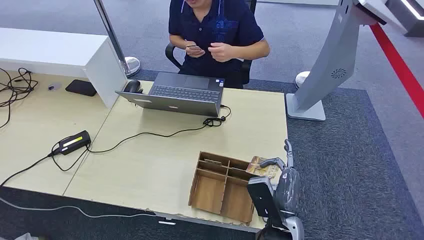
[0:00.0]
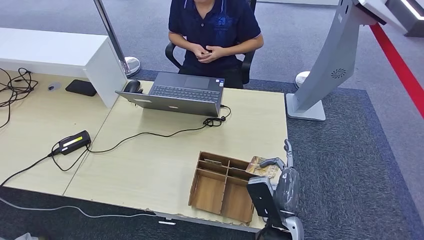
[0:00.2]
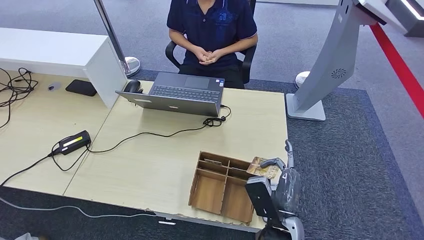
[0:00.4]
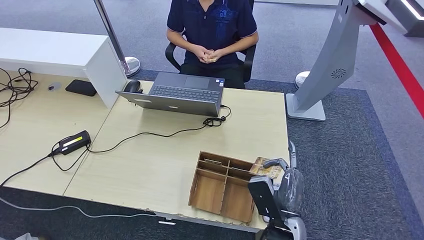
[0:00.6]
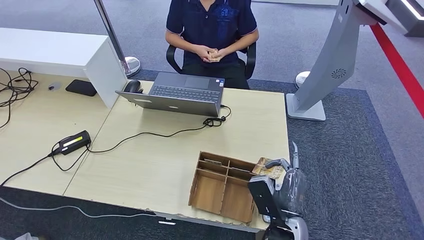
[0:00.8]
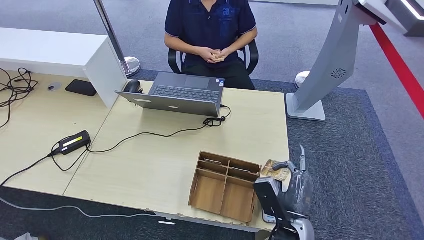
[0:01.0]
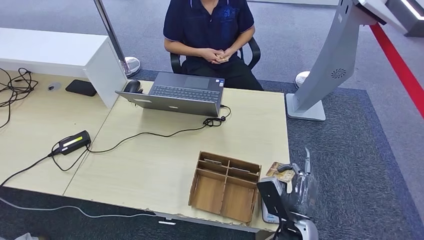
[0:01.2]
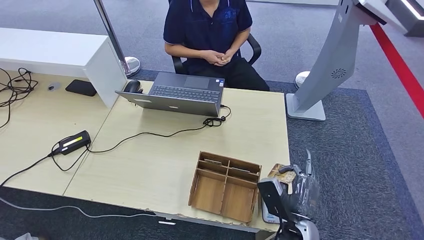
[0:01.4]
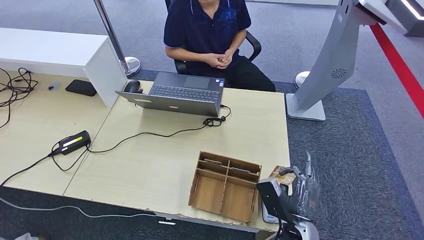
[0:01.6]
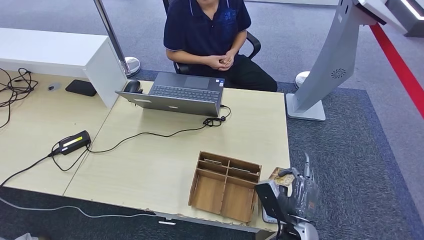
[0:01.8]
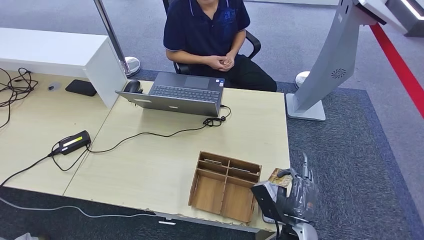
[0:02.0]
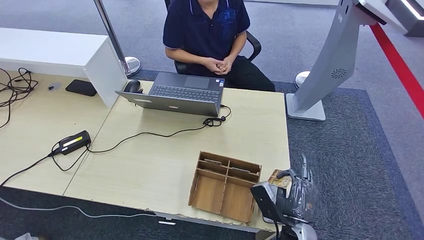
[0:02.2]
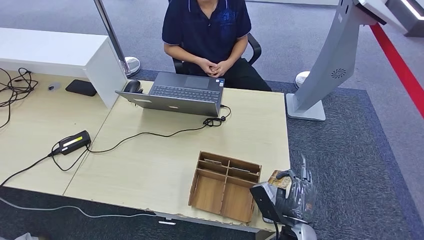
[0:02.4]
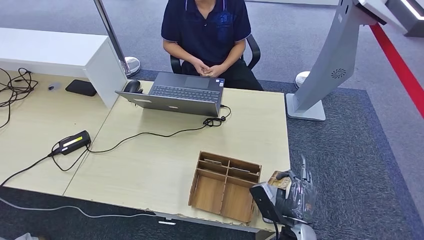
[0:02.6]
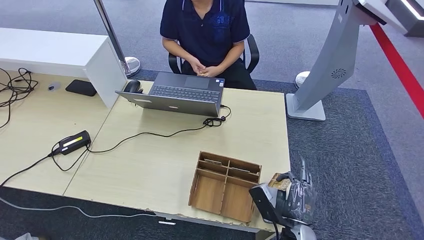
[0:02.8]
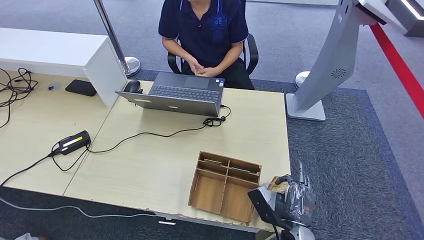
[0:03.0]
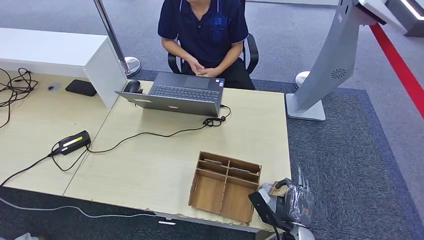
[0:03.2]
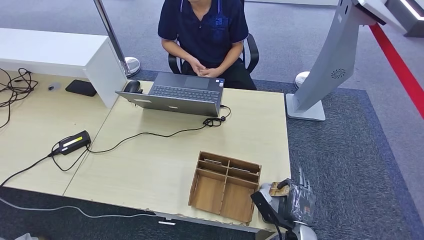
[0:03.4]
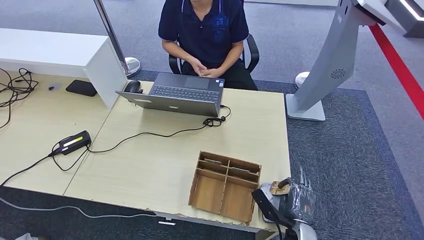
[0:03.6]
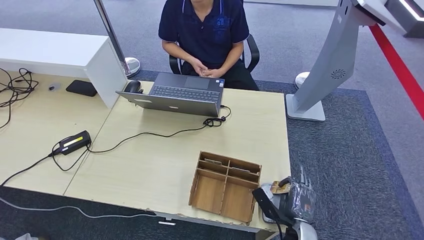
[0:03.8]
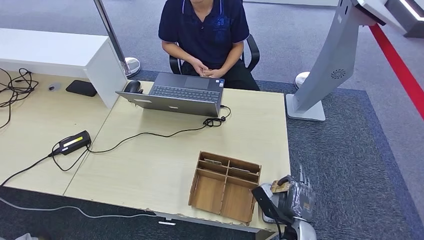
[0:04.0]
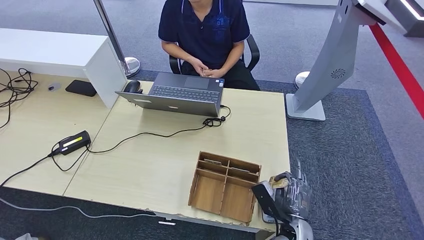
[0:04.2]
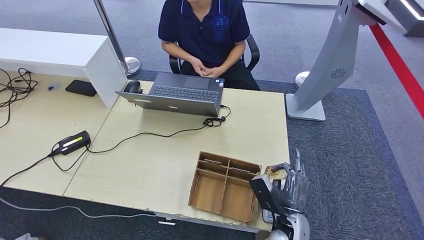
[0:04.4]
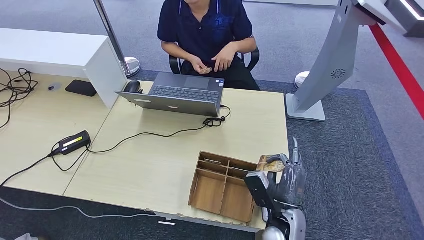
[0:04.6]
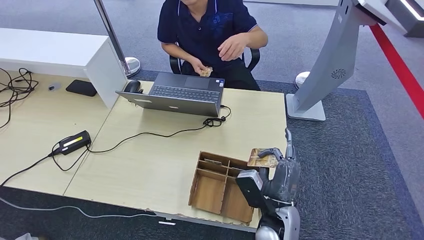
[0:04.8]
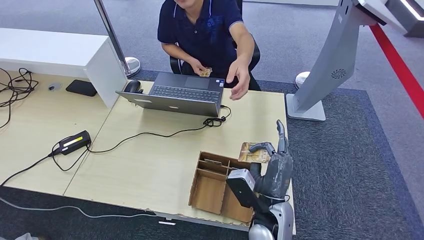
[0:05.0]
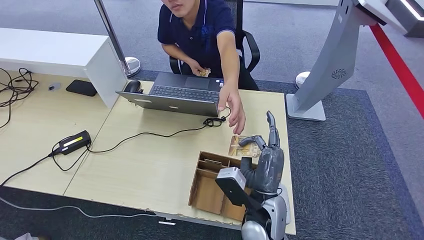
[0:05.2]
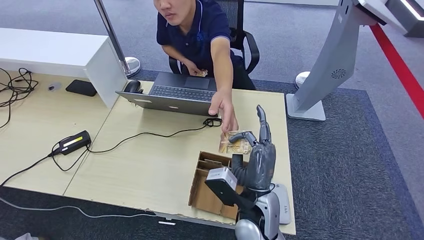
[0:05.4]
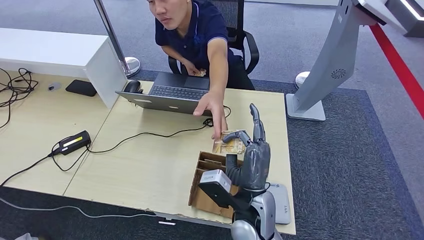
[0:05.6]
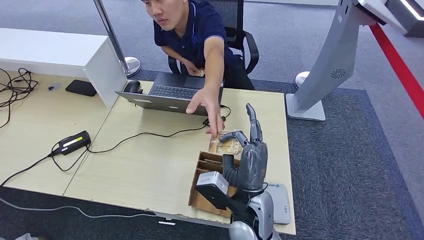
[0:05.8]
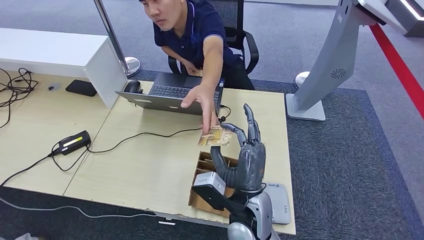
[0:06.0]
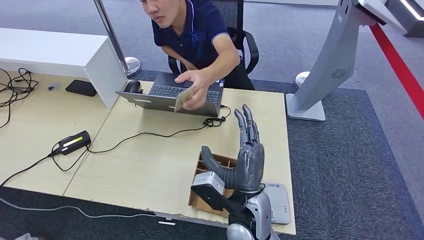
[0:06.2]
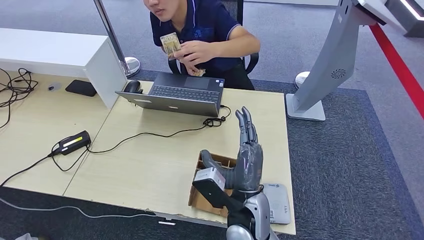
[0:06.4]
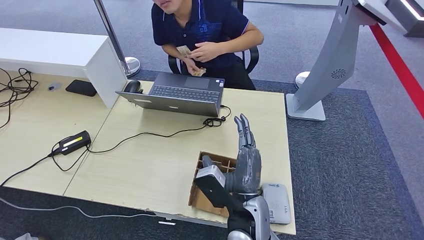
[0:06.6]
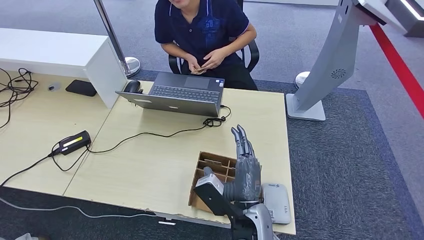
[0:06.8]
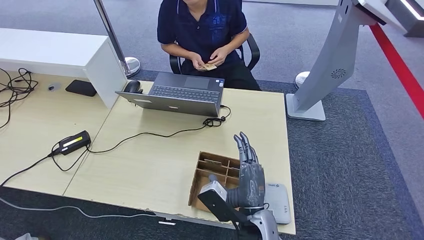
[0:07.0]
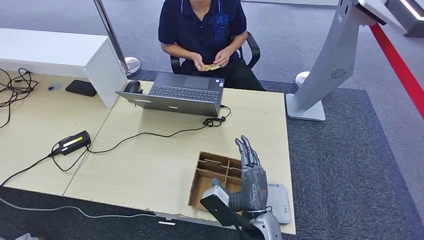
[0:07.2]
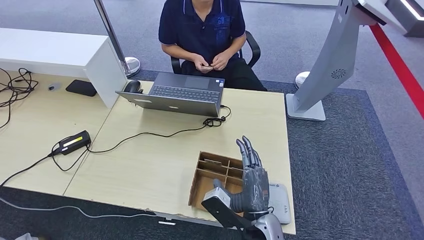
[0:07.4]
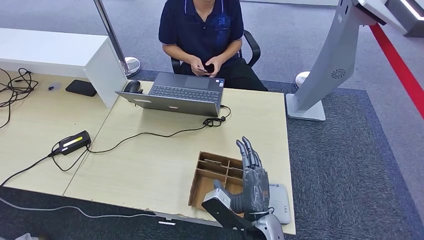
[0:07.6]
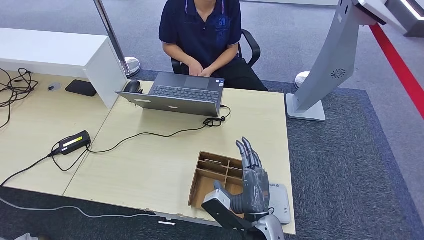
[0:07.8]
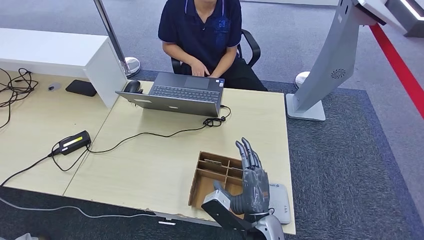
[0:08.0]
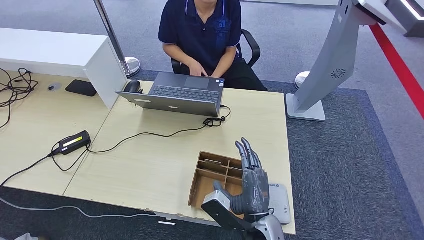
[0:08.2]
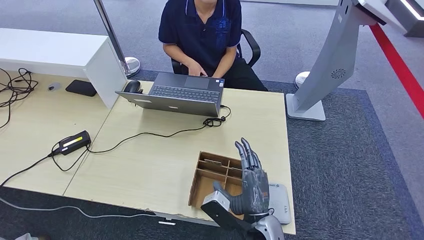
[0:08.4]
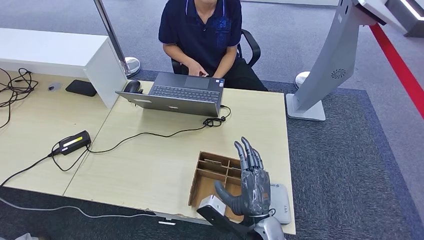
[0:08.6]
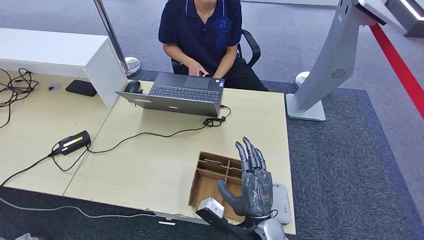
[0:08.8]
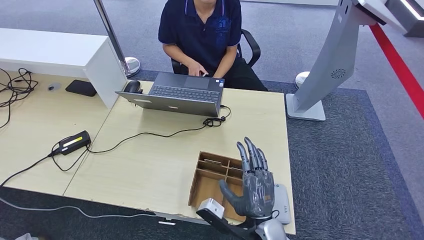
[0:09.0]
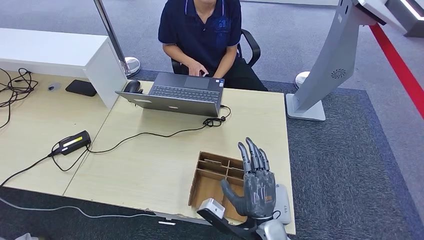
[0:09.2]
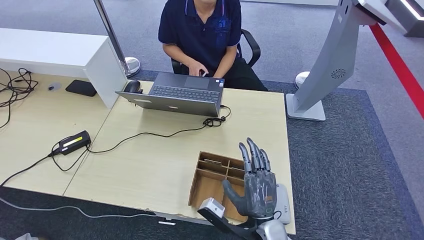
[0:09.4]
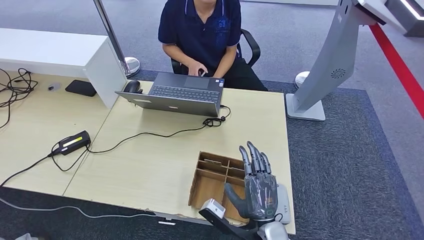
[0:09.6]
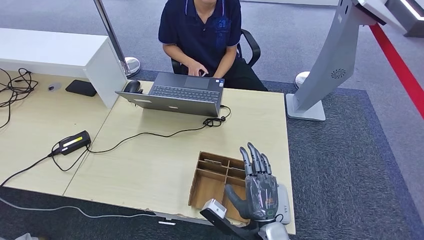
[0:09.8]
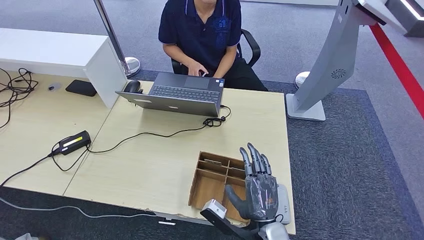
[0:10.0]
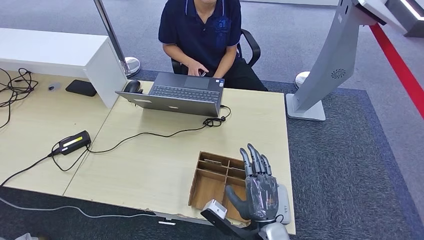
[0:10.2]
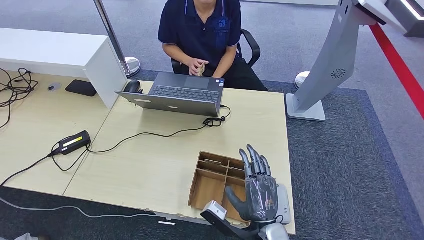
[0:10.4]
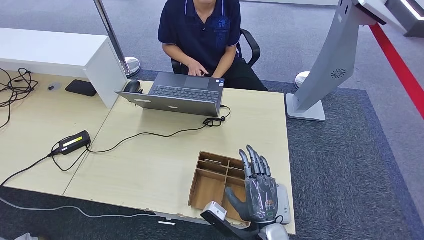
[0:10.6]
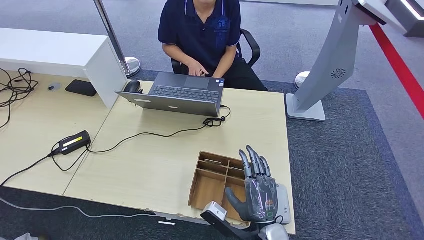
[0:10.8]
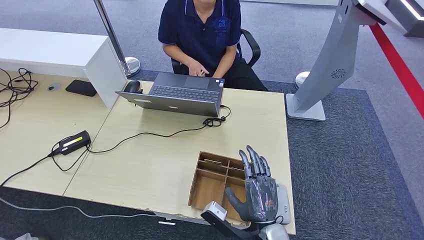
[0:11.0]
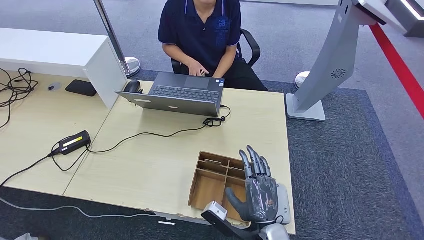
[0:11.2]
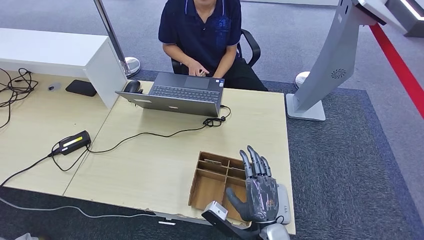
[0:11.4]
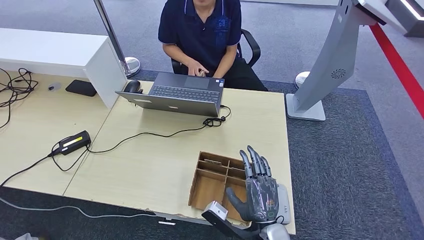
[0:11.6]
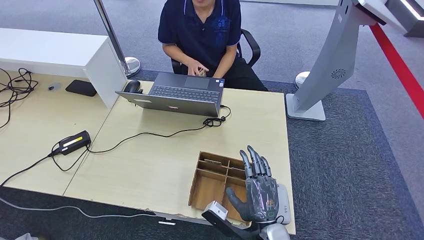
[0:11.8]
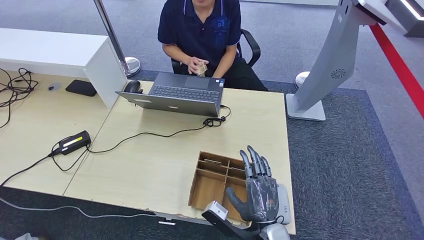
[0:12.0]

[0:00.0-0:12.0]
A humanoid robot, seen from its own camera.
Step, 0:00.0 to 0:00.2: Take the ID card from the person's hand.
Step, 0:00.4 to 0:04.4: Place the ID card on the card reader.
Step, 0:04.6 to 0:06.2: Hand the ID card to the person.
0:01.6 to 0:03.0: The hands move only a little.
0:03.0 to 0:04.4: There are only small adjustments of the hands.
0:04.4 to 0:06.0: The right hand moves upward, to the left and forward, approximately 20 cm.
0:06.0 to 0:07.6: The right hand ends up approximately 5 cm from where it was.
0:07.6 to 0:09.0: There are only small adjustments of the hands.
0:09.0 to 0:10.4: The hands make only small movements.
0:10.4 to 0:12.0: Neither hand changes place.

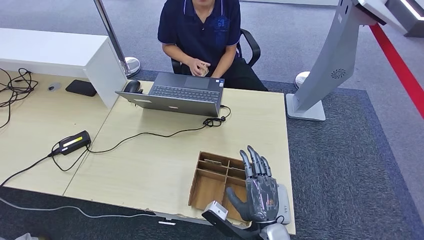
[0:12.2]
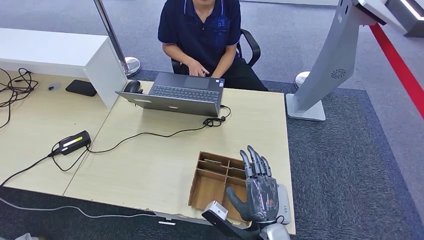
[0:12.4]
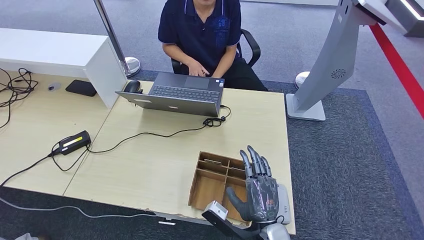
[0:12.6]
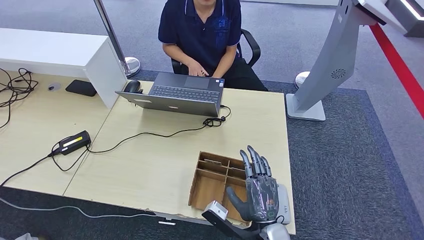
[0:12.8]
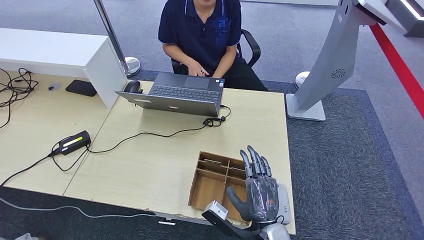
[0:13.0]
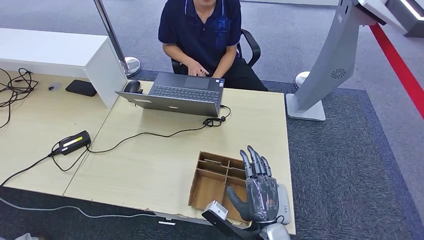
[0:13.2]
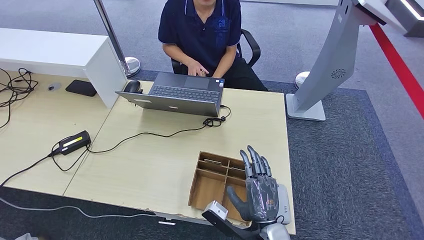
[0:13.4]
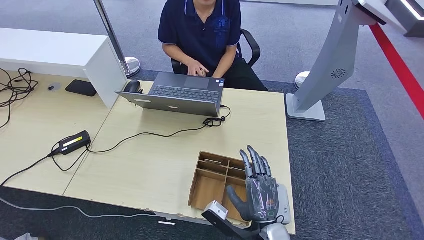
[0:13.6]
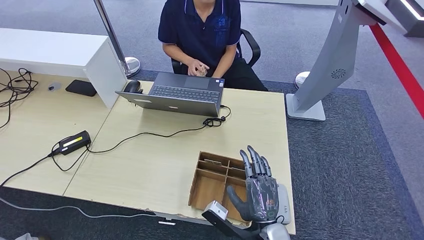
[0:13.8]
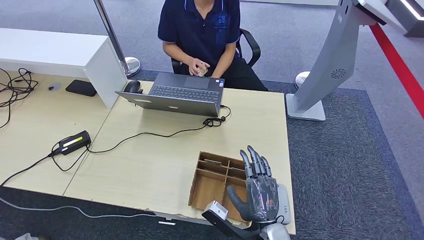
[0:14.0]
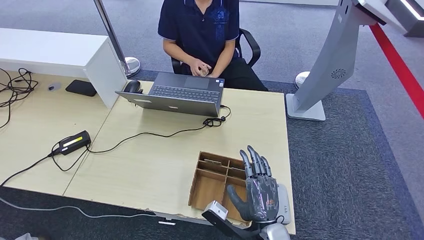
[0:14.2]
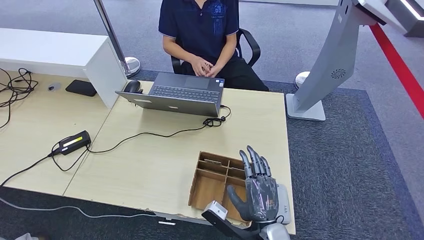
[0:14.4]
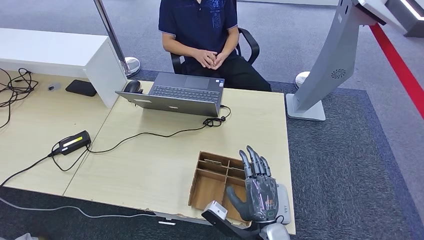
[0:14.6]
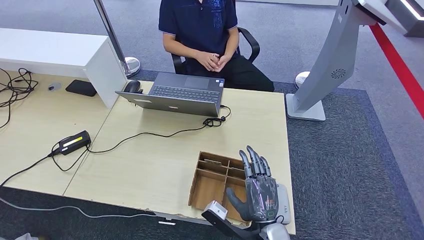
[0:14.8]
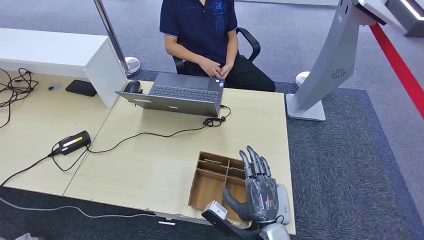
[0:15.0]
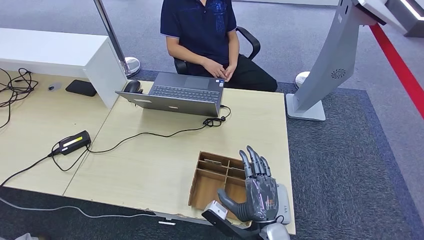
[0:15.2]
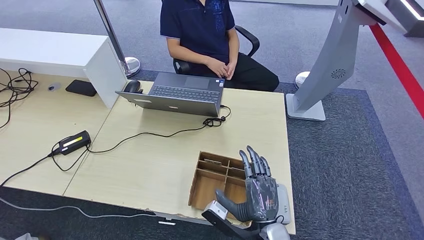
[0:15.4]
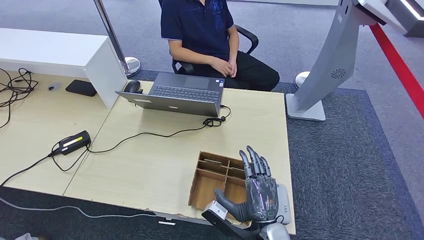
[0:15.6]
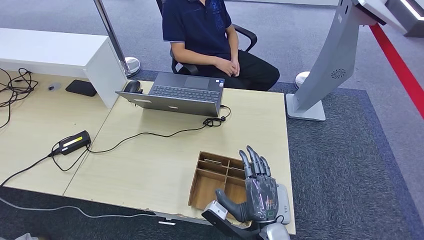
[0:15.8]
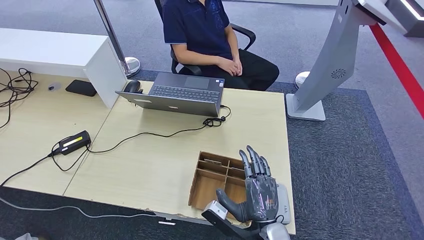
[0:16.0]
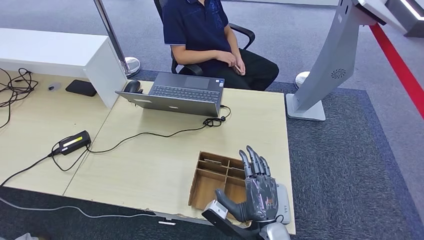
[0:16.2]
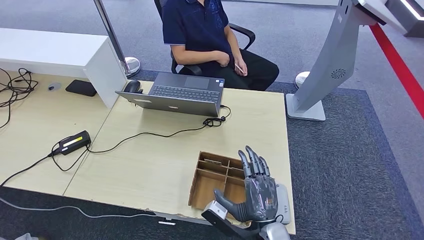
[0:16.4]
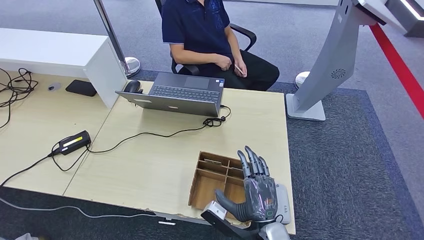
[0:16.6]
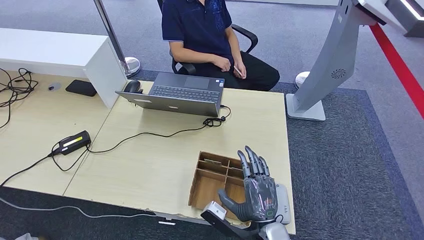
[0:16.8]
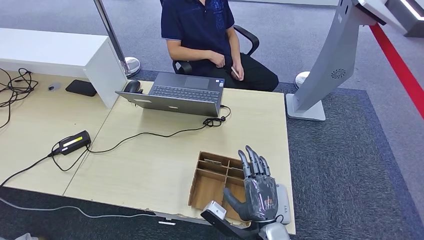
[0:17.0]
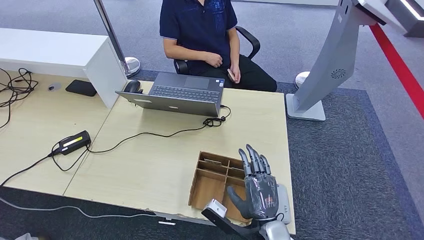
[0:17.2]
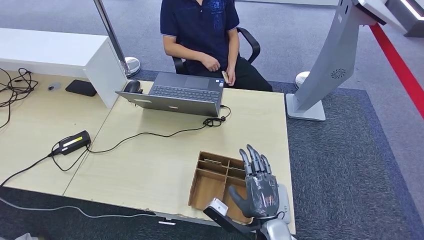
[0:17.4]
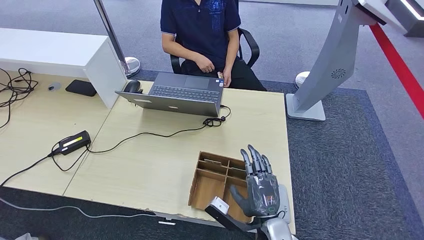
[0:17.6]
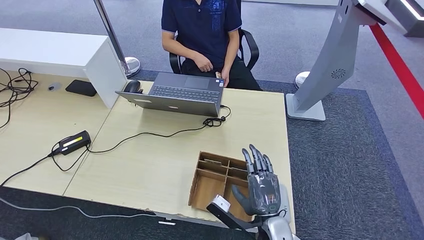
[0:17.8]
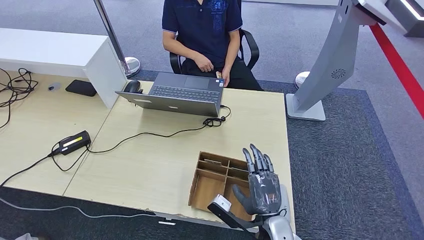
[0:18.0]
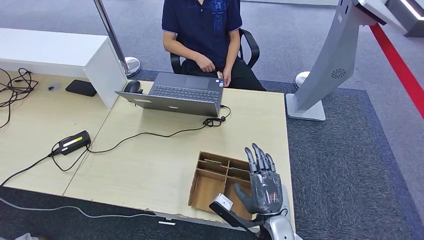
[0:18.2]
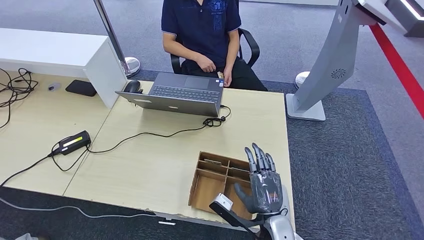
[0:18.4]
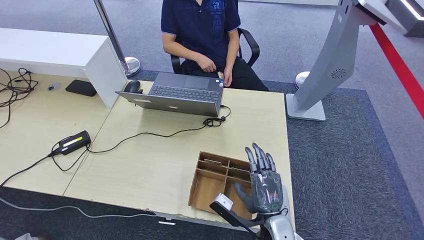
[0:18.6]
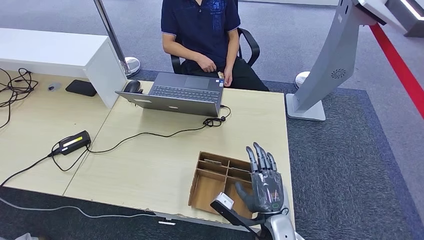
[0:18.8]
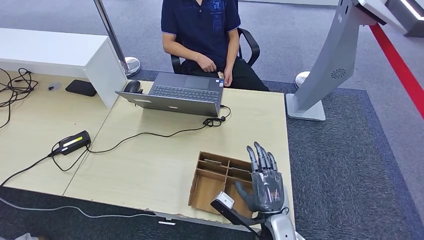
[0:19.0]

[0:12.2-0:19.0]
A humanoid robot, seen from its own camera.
0:12.2 to 0:16.2: The two hands keep their place.
0:16.2 to 0:19.0: There are only small adjustments of the hands.
